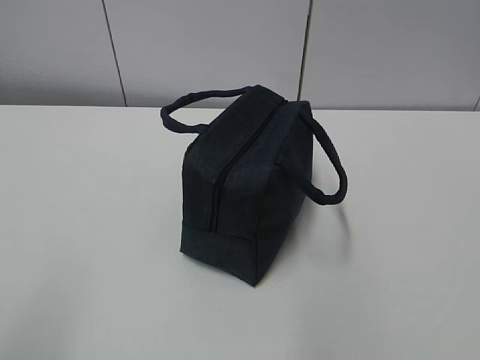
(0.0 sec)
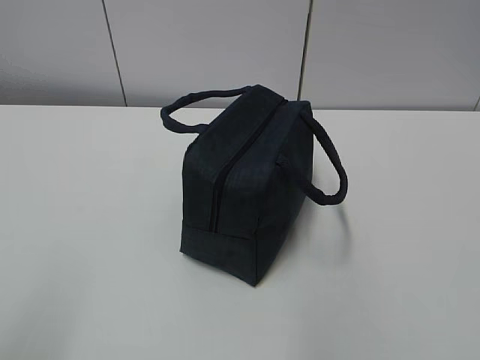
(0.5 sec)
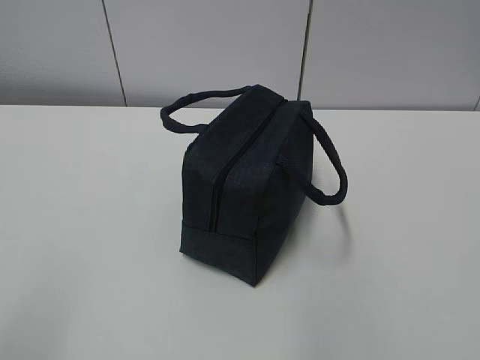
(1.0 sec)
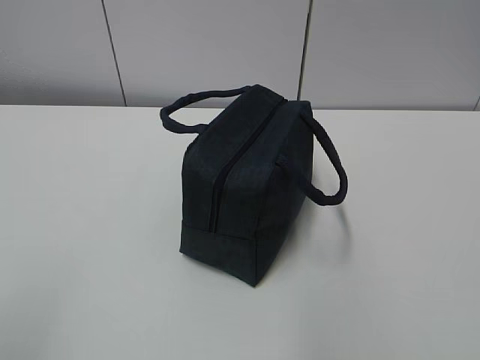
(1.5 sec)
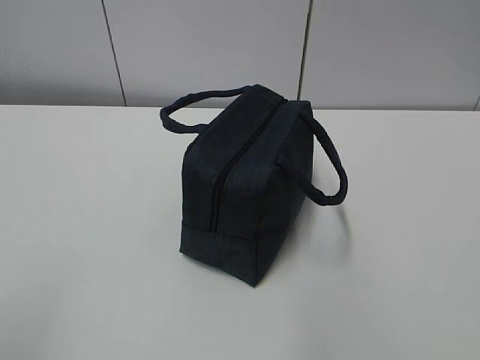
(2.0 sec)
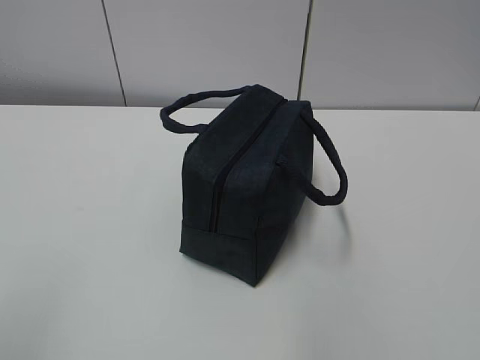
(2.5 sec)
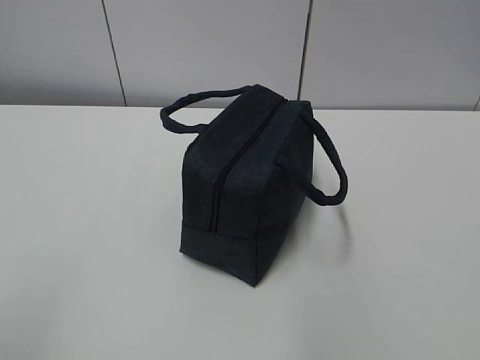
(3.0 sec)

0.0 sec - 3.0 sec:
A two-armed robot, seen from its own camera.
1.5 sec - 3.0 sec: Both grippers stay about where they are.

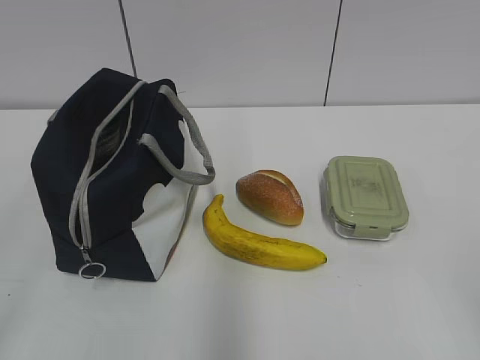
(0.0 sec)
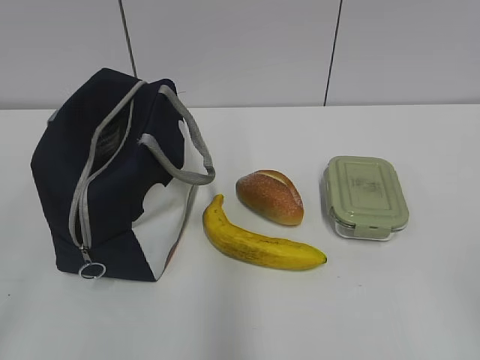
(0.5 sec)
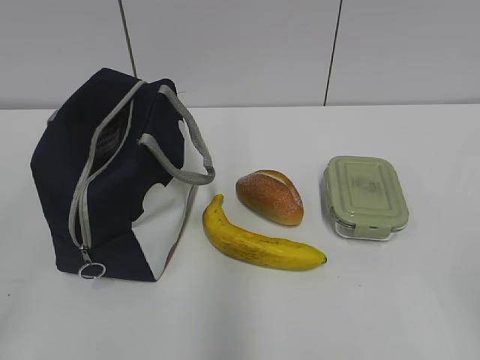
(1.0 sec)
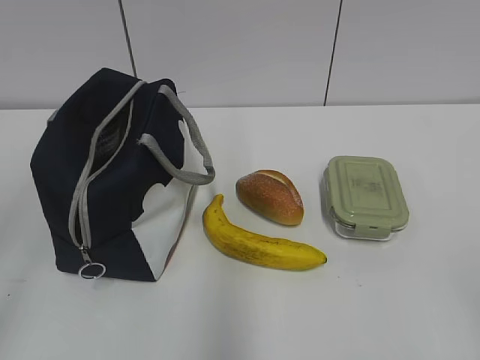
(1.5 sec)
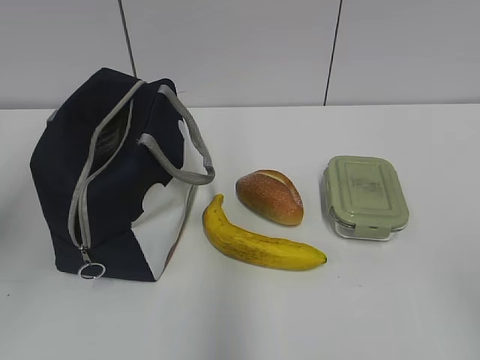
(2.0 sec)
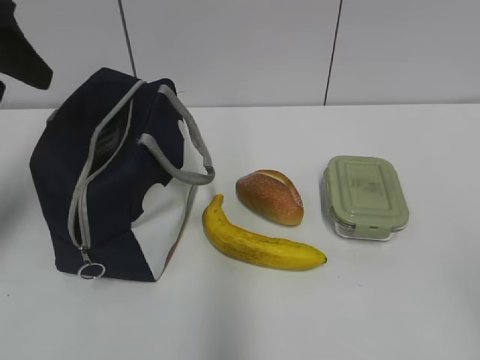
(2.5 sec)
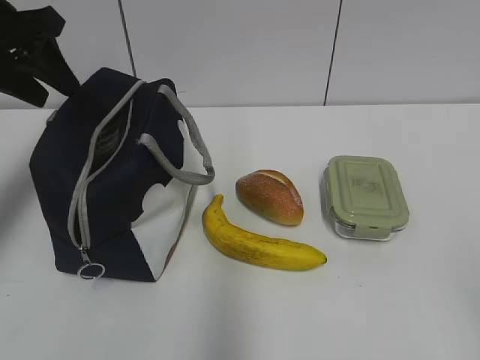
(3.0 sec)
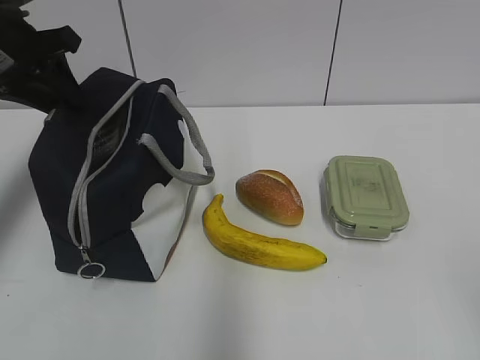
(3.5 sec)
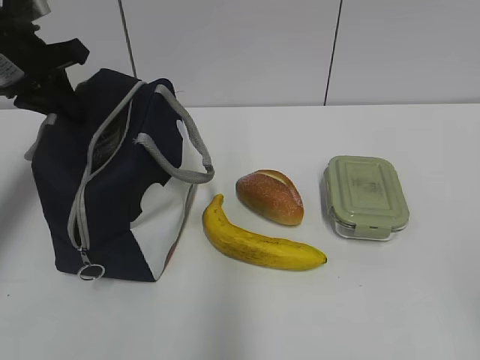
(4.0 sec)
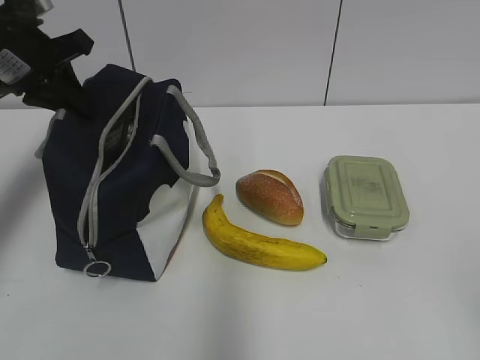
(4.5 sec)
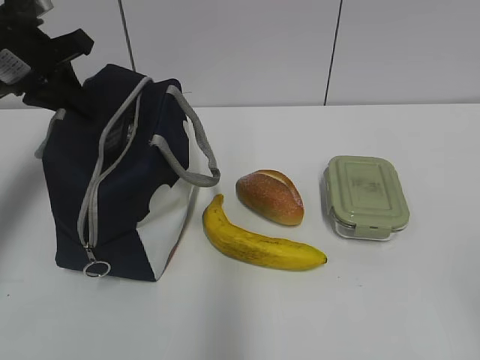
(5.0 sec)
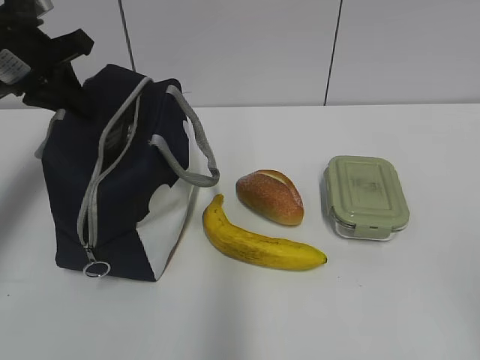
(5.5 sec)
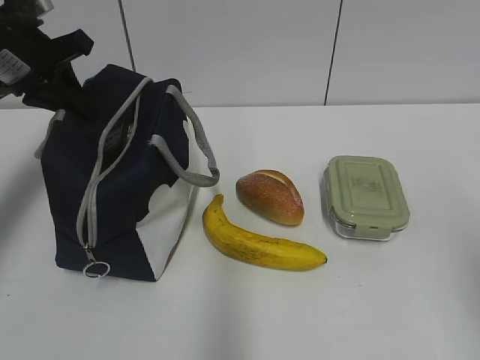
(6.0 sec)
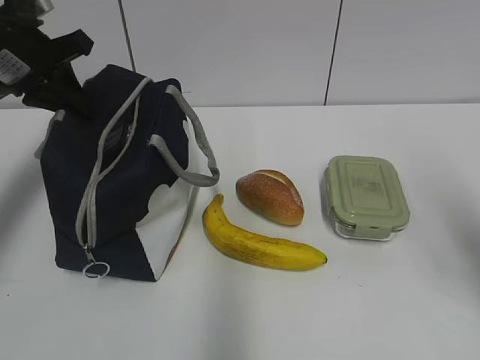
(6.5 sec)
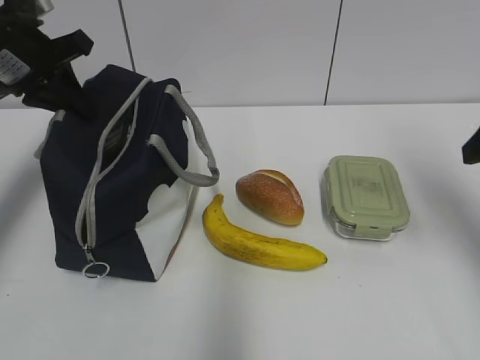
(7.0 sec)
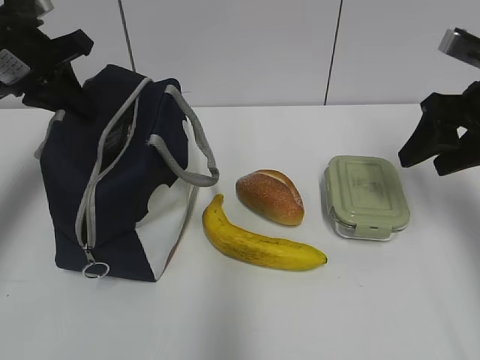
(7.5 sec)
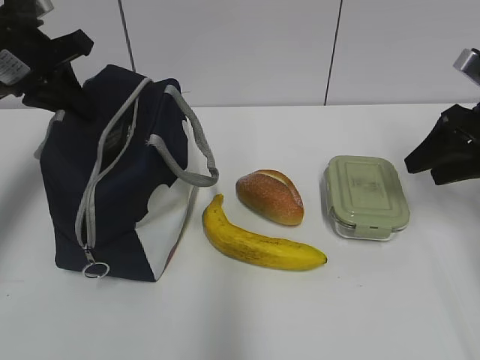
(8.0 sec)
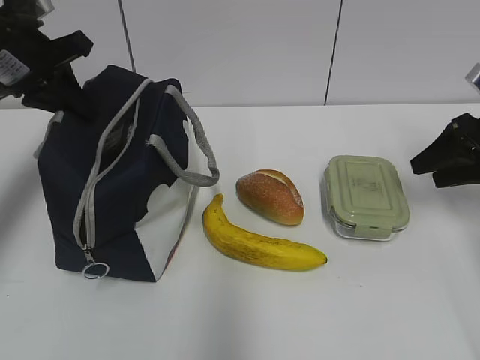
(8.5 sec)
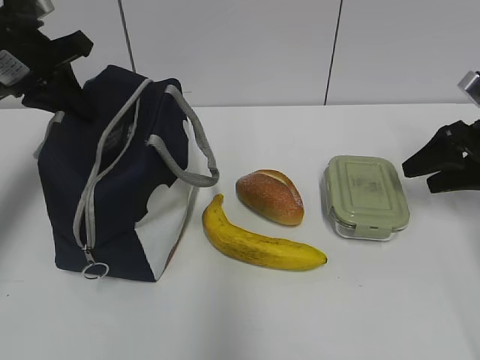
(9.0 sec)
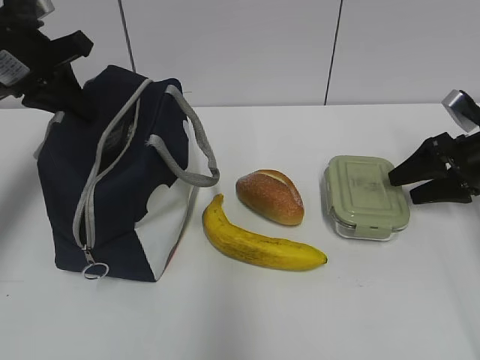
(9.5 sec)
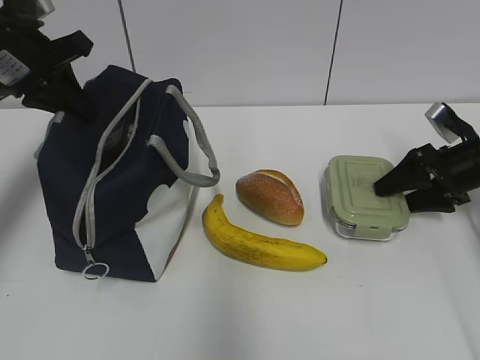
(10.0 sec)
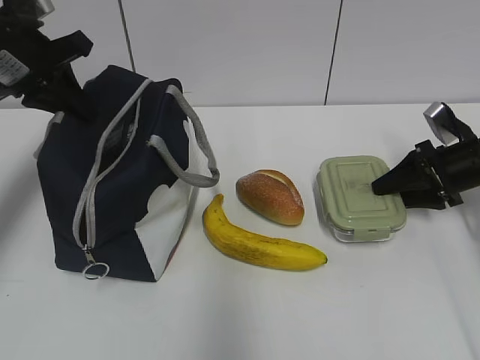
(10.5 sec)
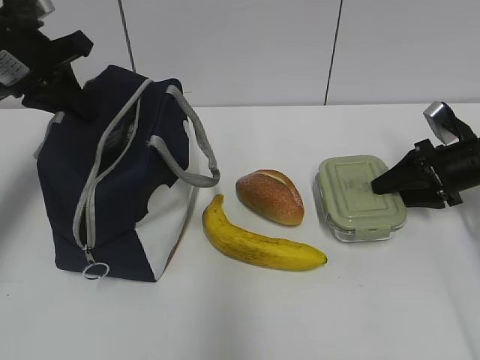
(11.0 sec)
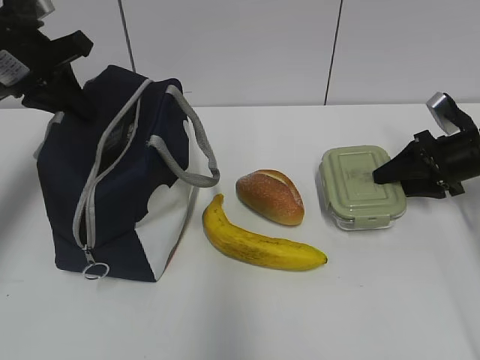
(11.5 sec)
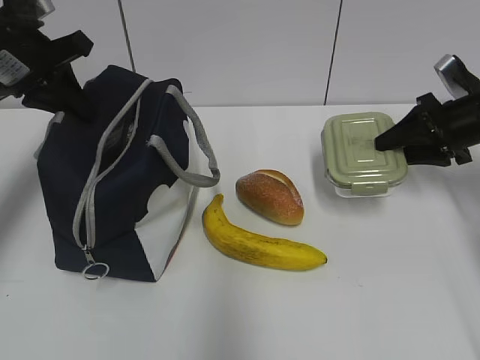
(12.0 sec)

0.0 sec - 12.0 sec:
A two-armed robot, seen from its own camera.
Step, 0.0 sec - 11.5 sec: Grab the lunch box with your right hand.
2.0 sec - 4.0 sec: The left gripper goes roughly 25 cm forward and downward, and closes.
4.0 sec - 6.0 sec: The right gripper is displaced forward by some 10 cm.
6.0 sec - 8.0 sec: The right gripper is displaced forward by roughly 25 cm.
8.0 sec - 10.0 sec: The right gripper heads downward, covering about 10 cm.
10.0 sec - 12.0 sec: The right gripper travels upward by approximately 5 cm.

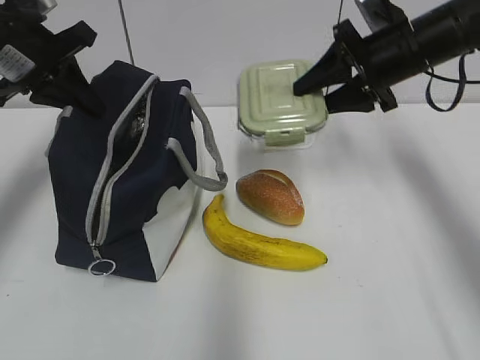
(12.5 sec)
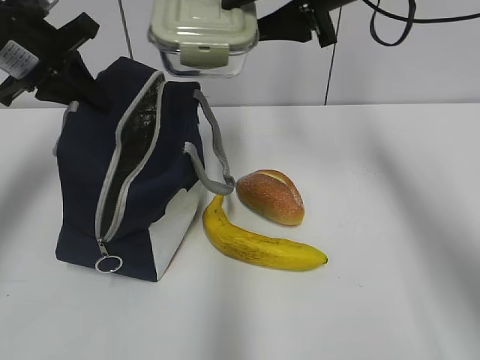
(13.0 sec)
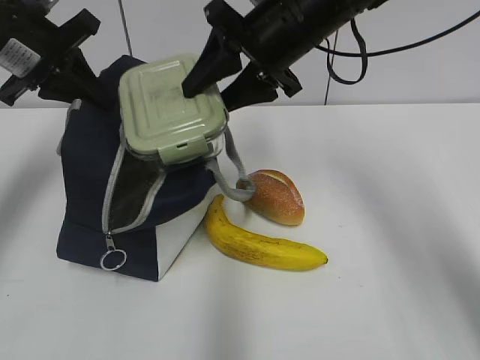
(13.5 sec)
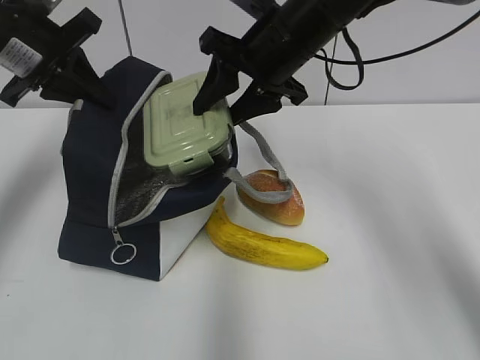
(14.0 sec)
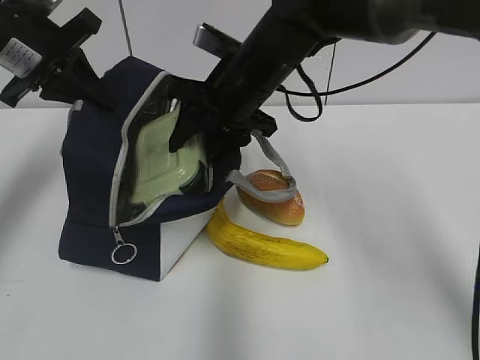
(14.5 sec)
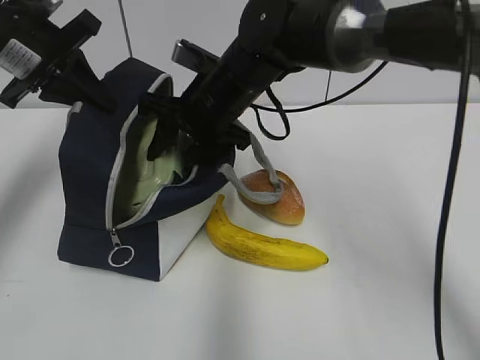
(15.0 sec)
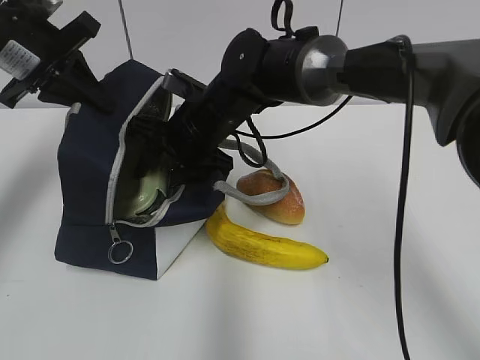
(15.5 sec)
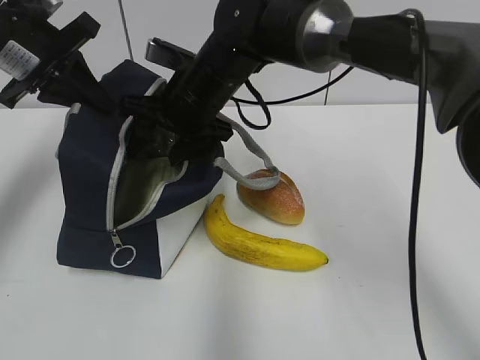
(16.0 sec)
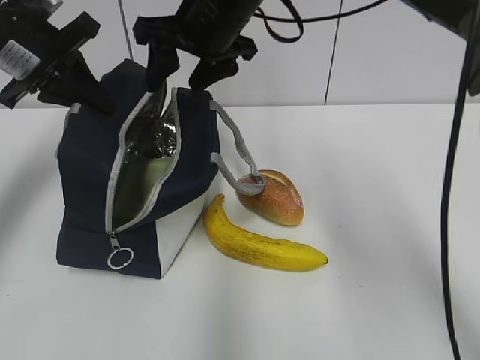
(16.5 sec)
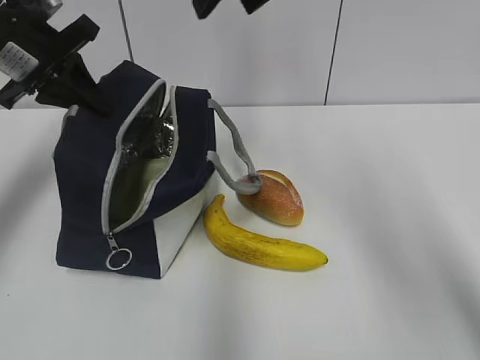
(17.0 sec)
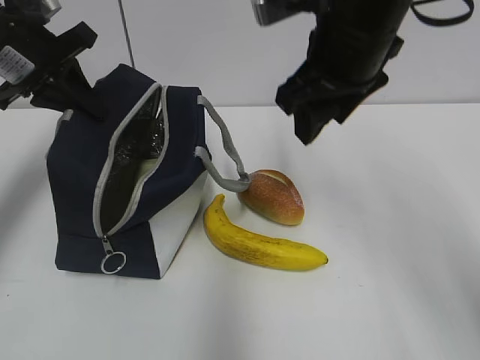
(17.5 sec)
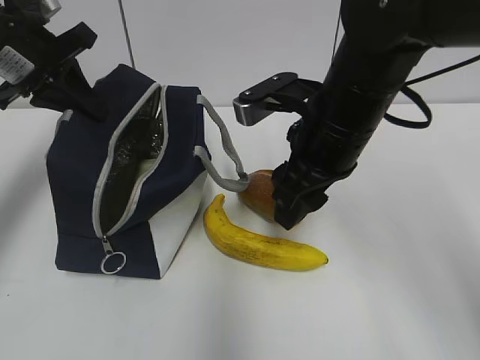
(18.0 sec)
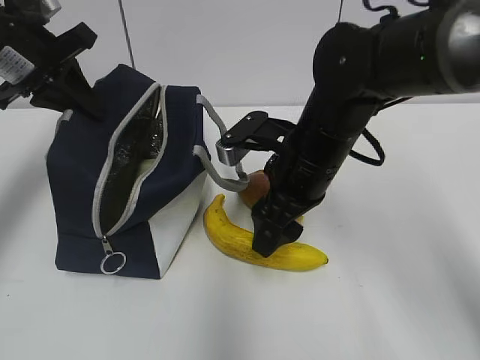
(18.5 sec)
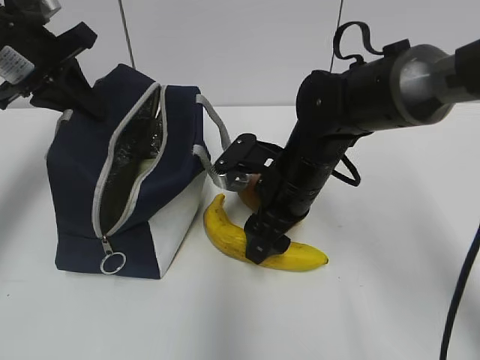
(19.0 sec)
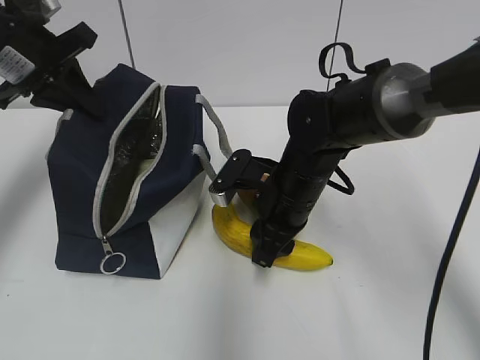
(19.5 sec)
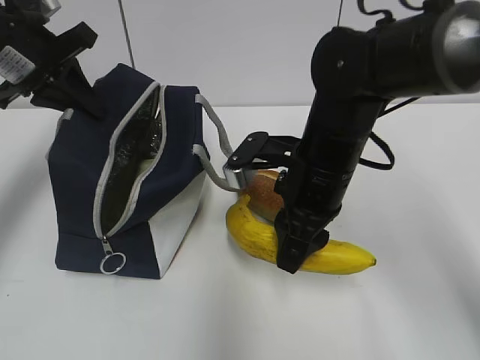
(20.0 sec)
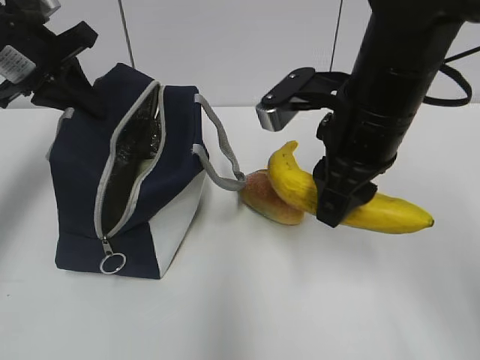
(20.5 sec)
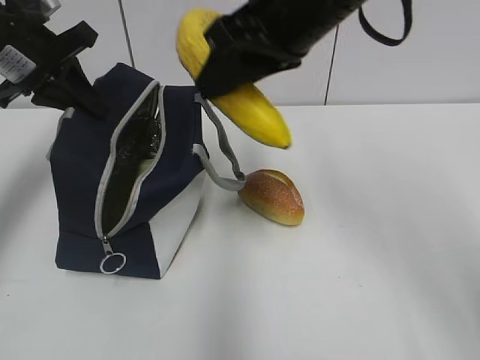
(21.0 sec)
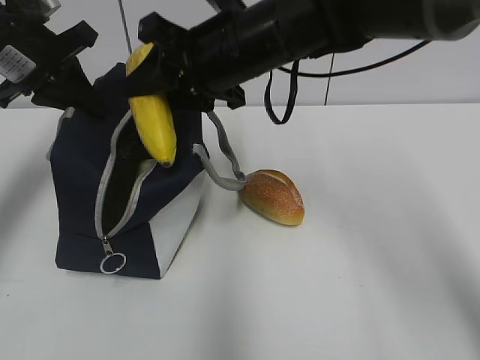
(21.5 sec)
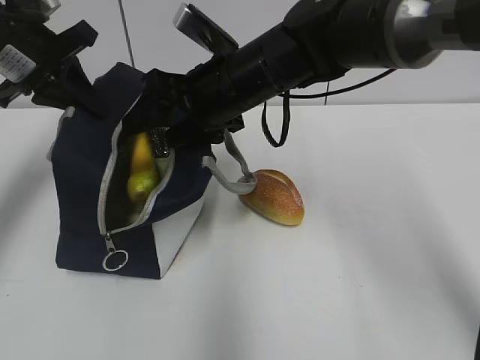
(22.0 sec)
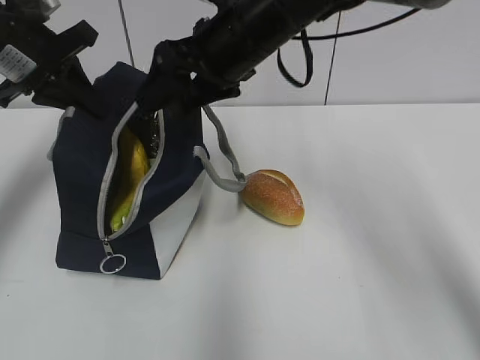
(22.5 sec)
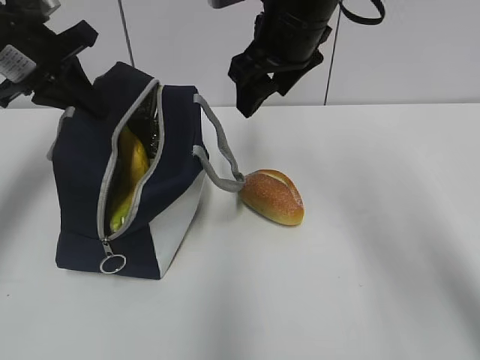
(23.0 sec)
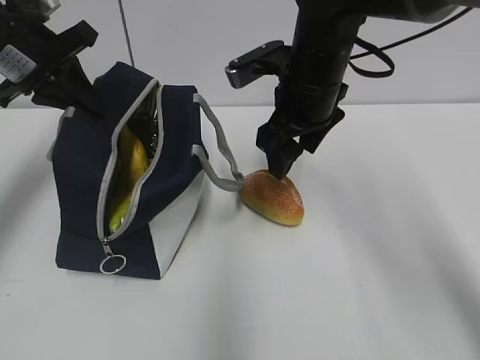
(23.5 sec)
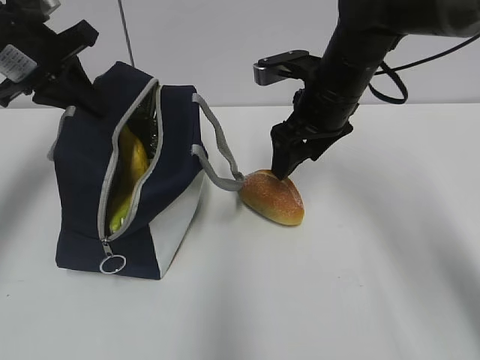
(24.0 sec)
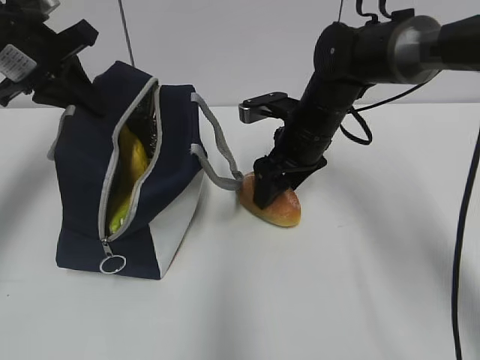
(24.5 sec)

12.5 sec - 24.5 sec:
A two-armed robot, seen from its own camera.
Step, 13.5 sec - 16.0 sec: Place it into the bag with your right hand.
Step, 16.5 sec - 19.5 sec: Grab the banana with your right hand.
Step, 20.0 sec - 22.0 sec: Place it into the bag with your right hand.
12.5 sec - 14.5 sec: The right gripper moves to the left, roughly 20 cm.
14.5 sec - 16.5 sec: The right gripper goes some 5 cm upward.
16.5 sec - 18.5 sec: The right gripper is displaced downward, backward and to the right by some 15 cm.
18.5 sec - 20.5 sec: The right gripper travels upward by approximately 10 cm, and closes its fingers.
20.5 sec - 22.5 sec: The right gripper swings up and down, about 10 cm each way, with 2 reversals, and opens its fingers.
22.5 sec - 24.5 sec: The right gripper travels downward and to the right by some 15 cm.
